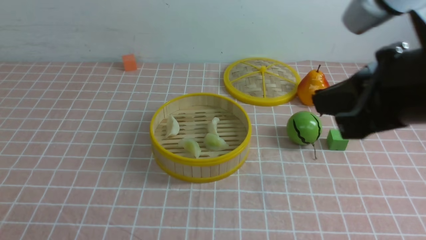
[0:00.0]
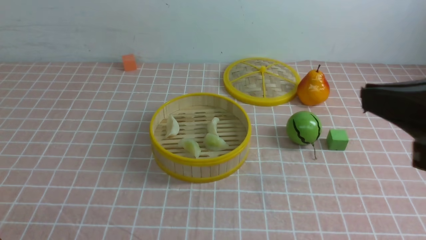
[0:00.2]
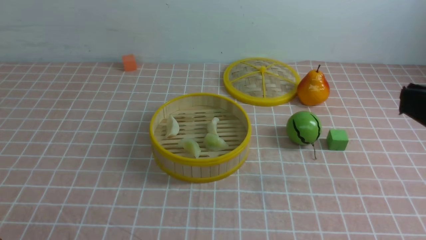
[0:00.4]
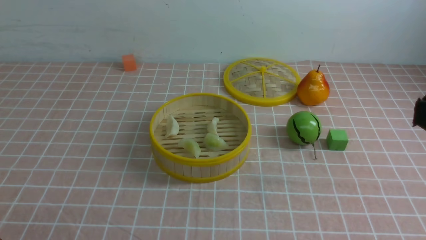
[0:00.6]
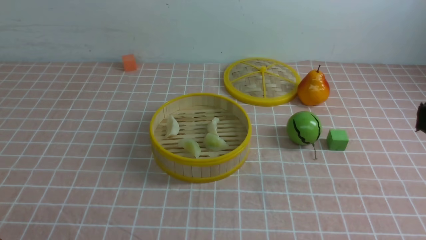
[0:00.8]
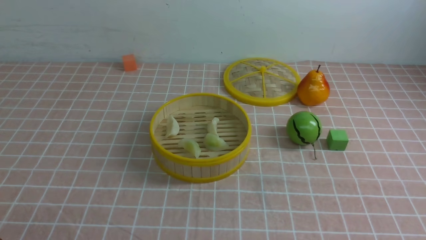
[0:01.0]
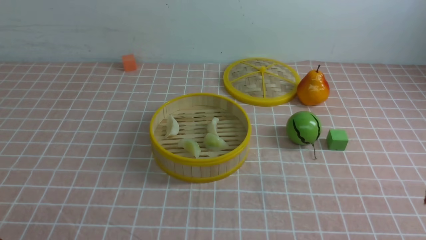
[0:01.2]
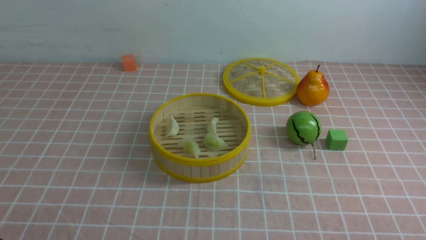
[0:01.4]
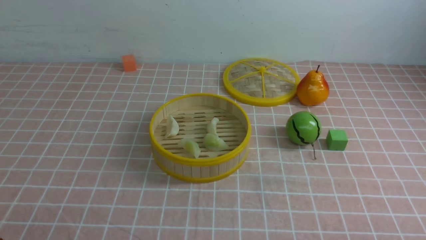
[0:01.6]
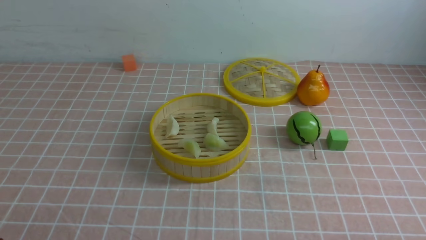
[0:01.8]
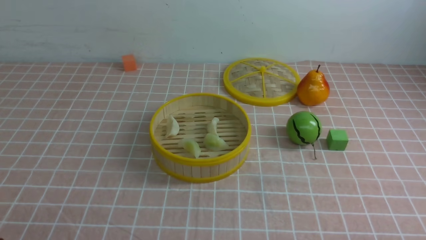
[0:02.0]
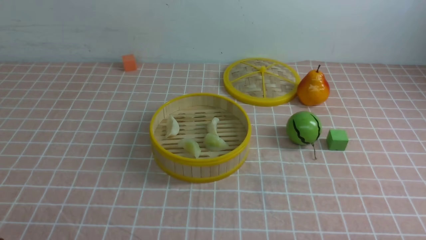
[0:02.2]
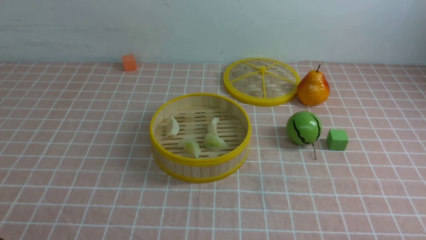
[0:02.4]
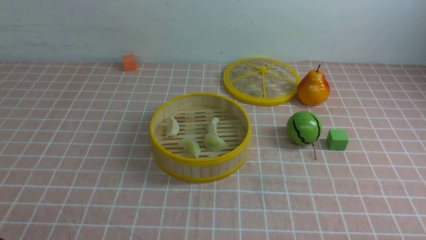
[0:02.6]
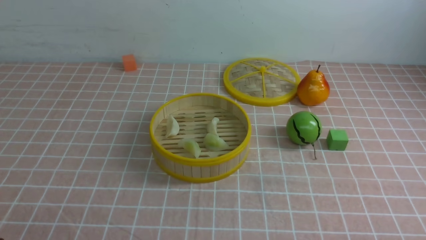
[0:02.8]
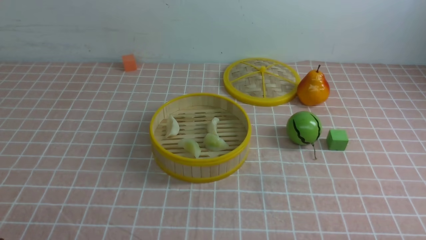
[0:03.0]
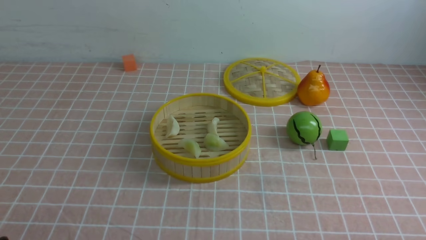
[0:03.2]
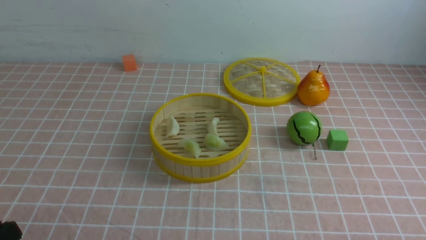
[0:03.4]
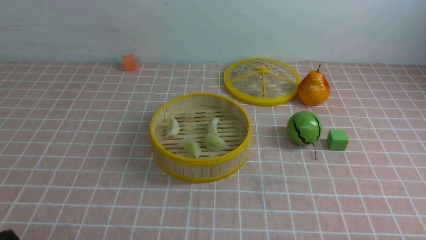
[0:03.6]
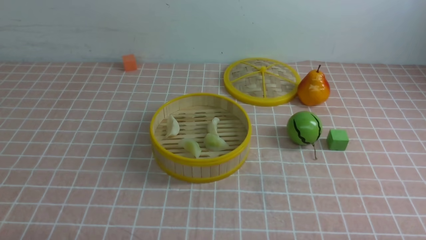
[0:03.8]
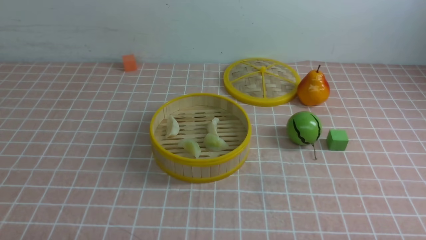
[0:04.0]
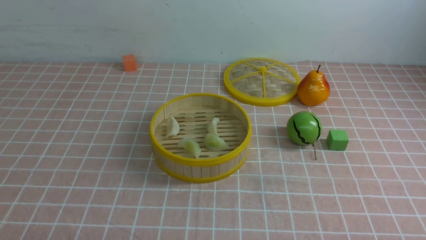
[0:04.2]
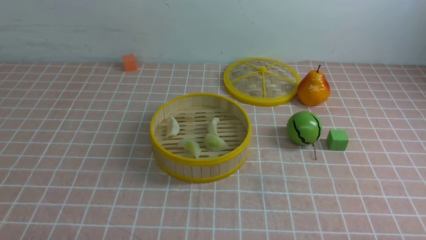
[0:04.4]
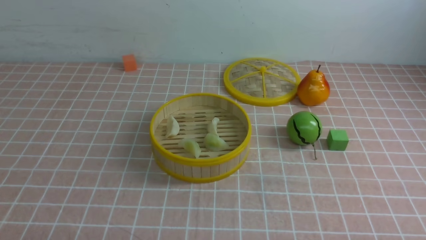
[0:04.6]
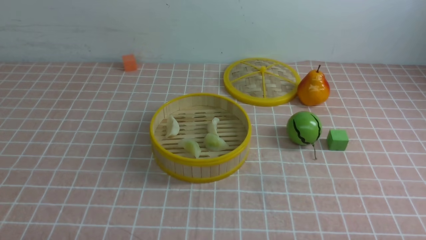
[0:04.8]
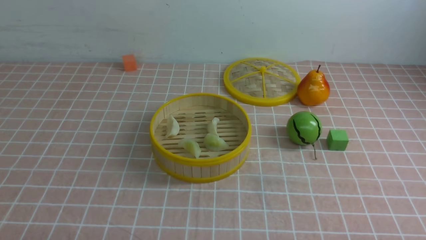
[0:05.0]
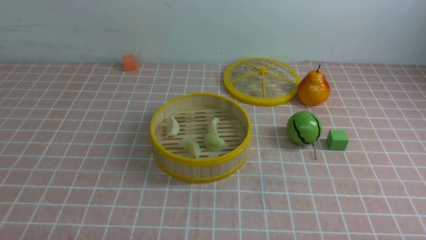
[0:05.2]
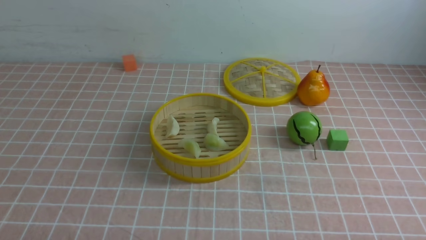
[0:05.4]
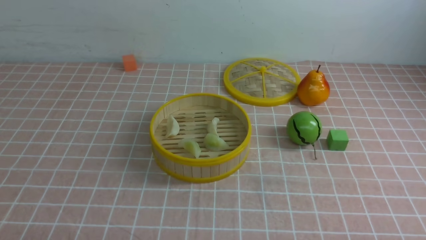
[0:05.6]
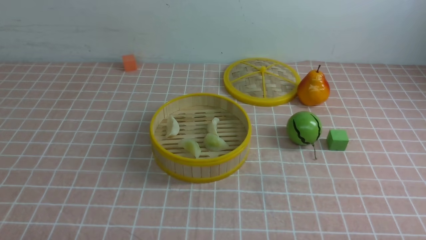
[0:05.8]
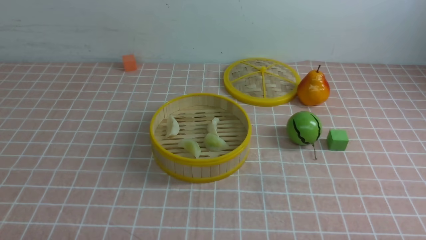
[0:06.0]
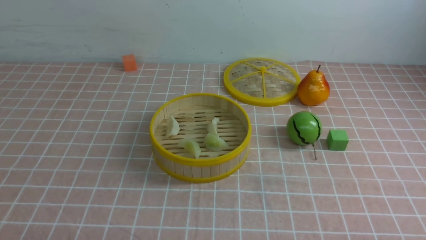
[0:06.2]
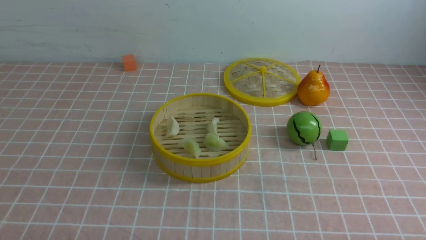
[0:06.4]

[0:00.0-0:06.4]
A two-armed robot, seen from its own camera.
Task of the whole recording: put the dumplings into the steamer on the table with the pink tablecloth.
0:00.0 to 0:01.6: The right gripper shifts about 30 cm downward, to the right and backward.
0:04.8 to 0:06.4: Both grippers stay about where they are.
